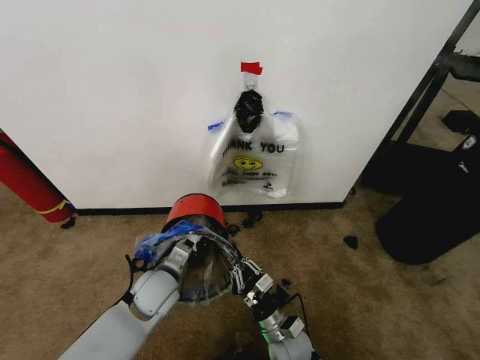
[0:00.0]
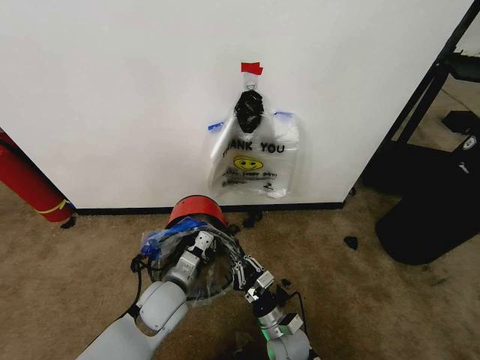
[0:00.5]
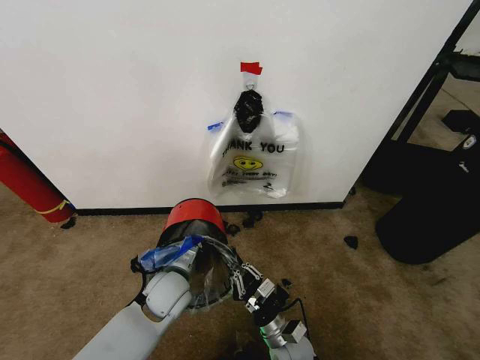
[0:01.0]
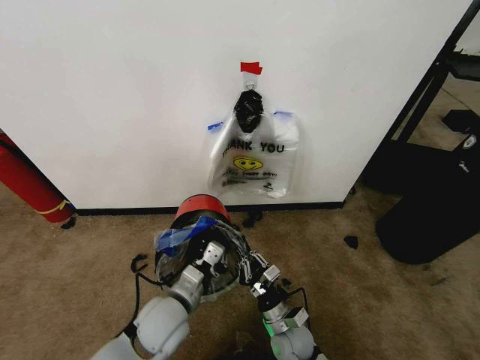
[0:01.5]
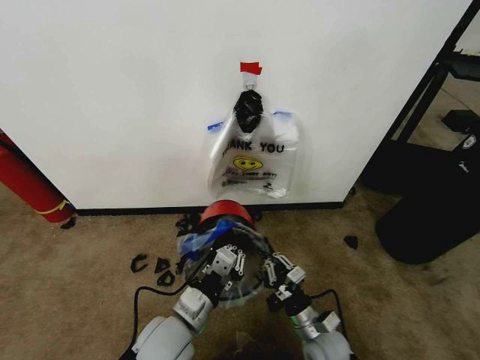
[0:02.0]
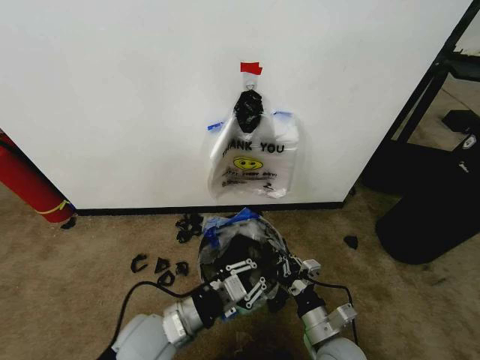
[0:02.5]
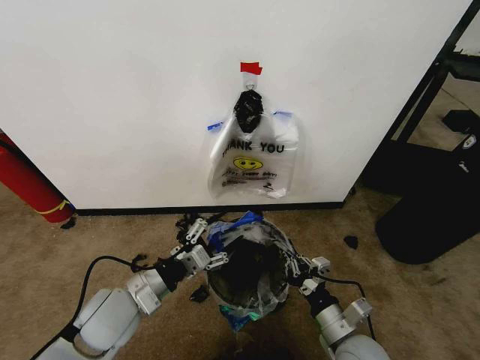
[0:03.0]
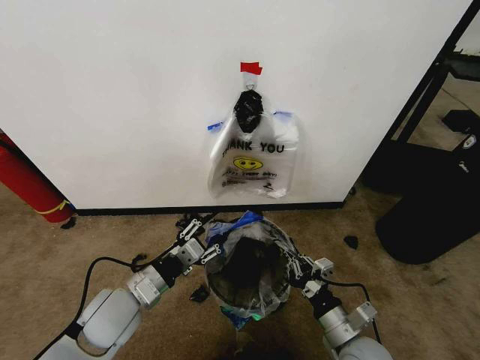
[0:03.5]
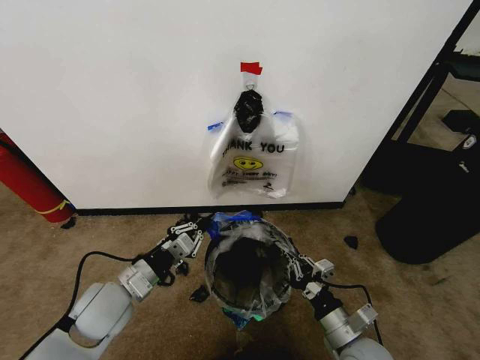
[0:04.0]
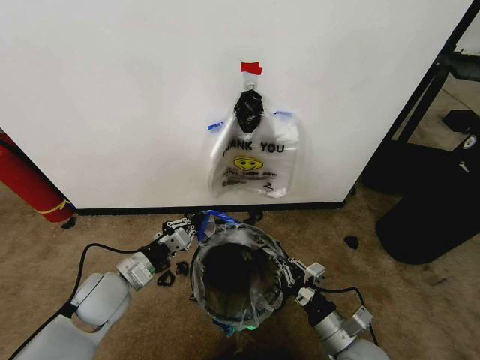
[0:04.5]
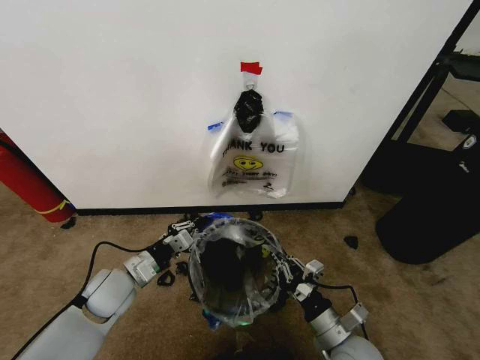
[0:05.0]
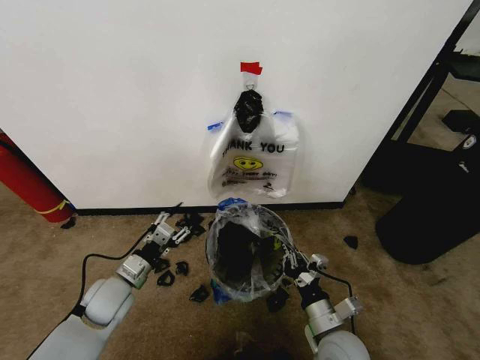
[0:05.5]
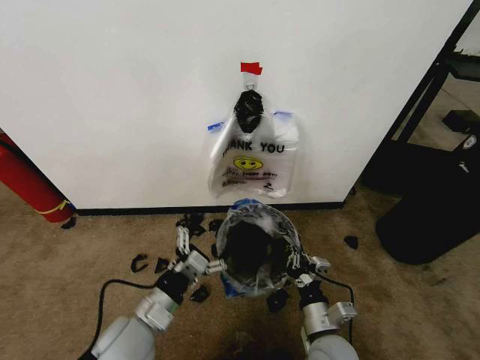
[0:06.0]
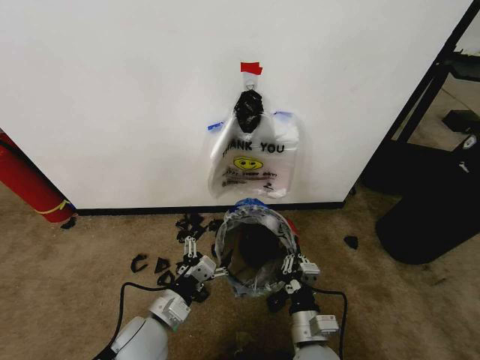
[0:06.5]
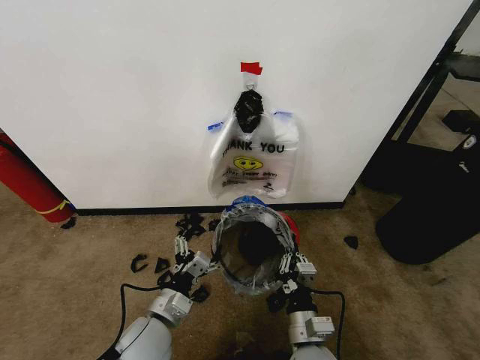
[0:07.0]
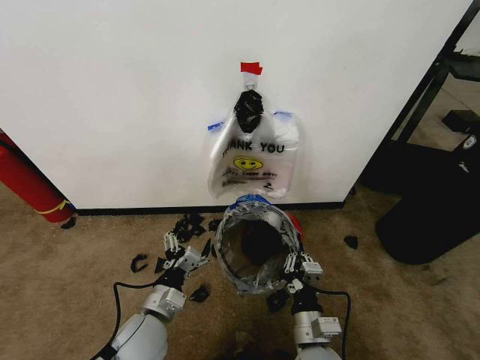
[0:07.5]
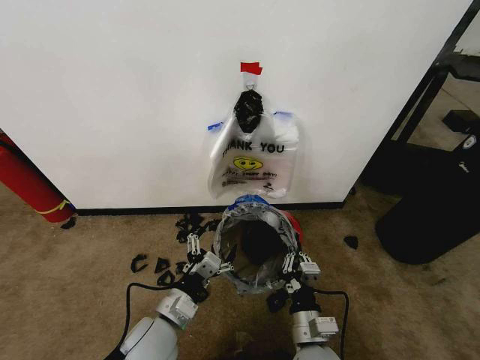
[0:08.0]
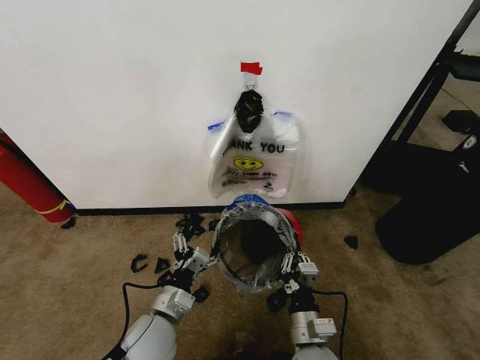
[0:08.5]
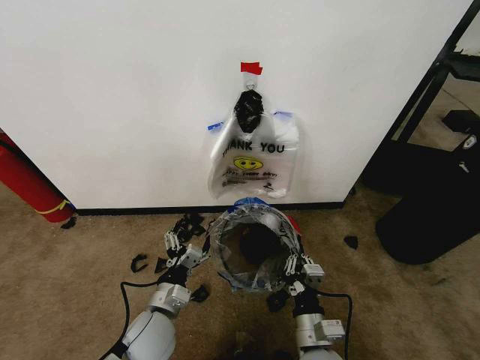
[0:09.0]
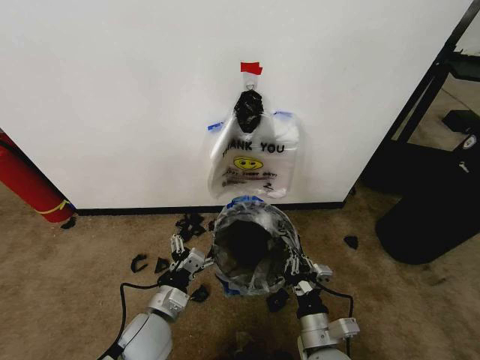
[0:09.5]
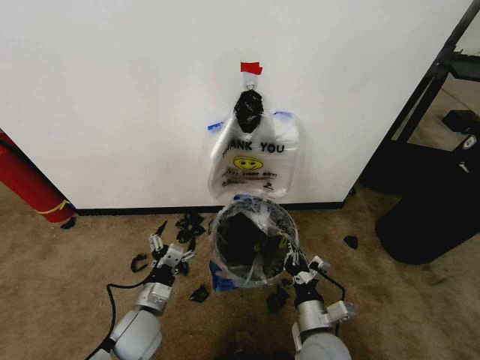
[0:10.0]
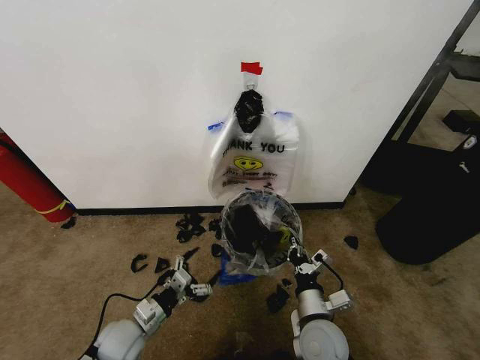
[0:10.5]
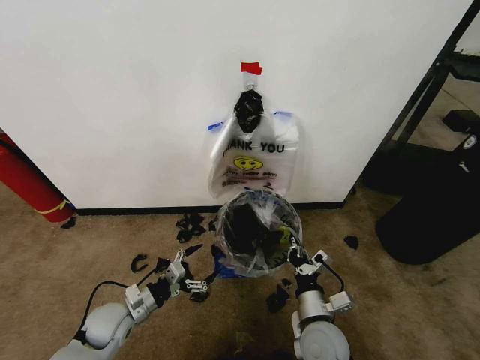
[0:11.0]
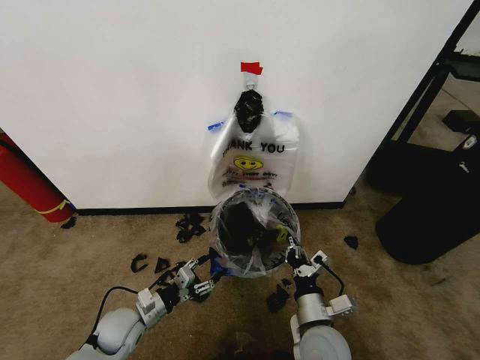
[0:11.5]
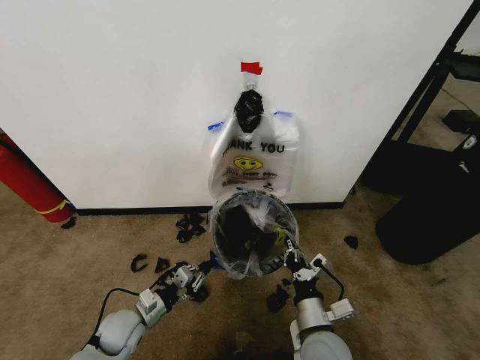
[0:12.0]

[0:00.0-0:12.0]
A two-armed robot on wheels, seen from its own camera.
Task of the whole recording: Pick up the garbage bag from the wall and place it over the trash bin.
0:00.0 to 0:02.0: The right gripper shifts some 5 cm to the right. The left gripper moves backward and to the right, approximately 10 cm.
0:02.0 to 0:04.0: The right gripper heads upward, covering some 10 cm. The left gripper heads to the left and forward, covering approximately 15 cm, and opens, then closes again.
0:04.0 to 0:06.0: The right gripper shifts approximately 5 cm to the left, while the left gripper heads backward and to the right, covering approximately 10 cm, and opens its fingers.
0:08.0 to 0:10.0: The left gripper moves downward, roughly 5 cm.
0:10.0 to 0:12.0: The left gripper shifts some 10 cm to the left and downward, and closes its fingers.

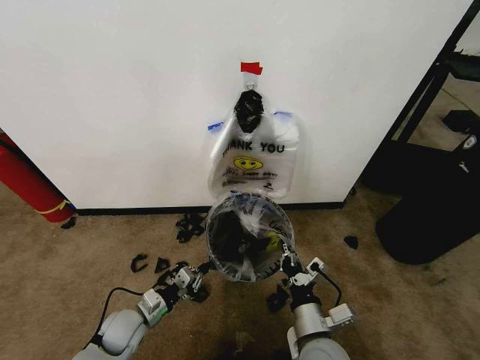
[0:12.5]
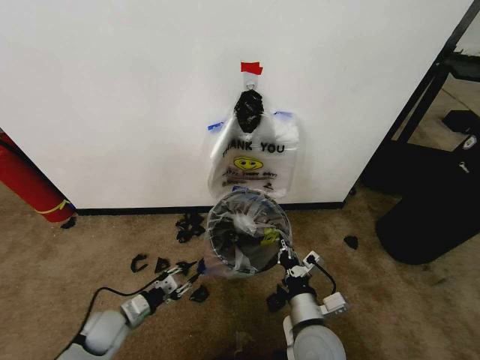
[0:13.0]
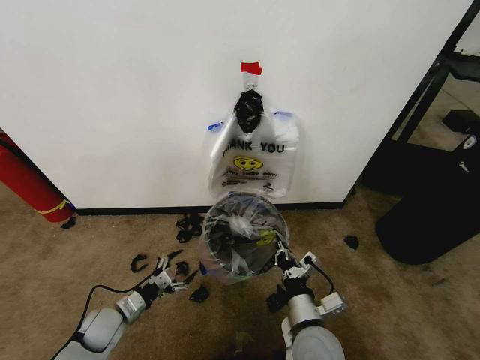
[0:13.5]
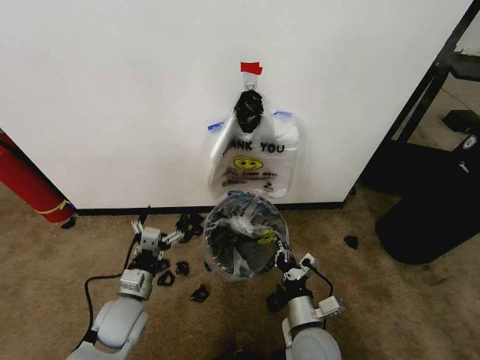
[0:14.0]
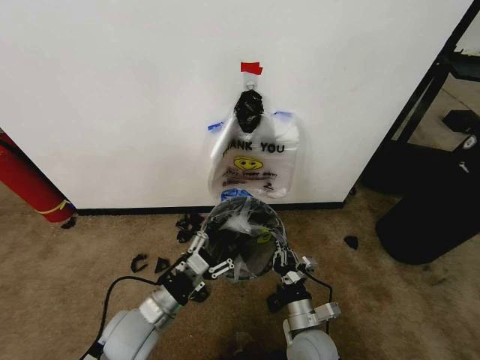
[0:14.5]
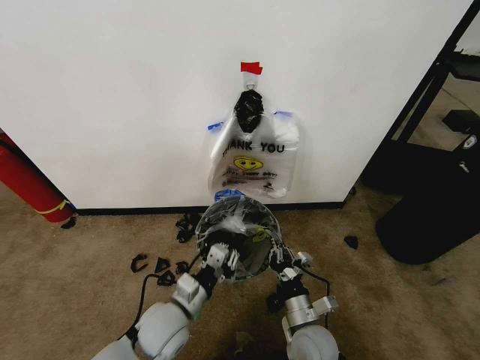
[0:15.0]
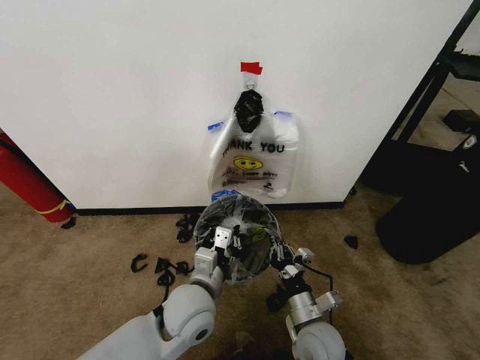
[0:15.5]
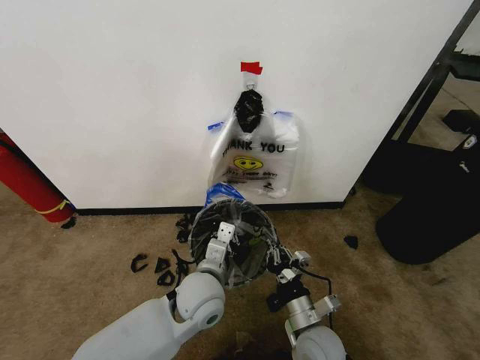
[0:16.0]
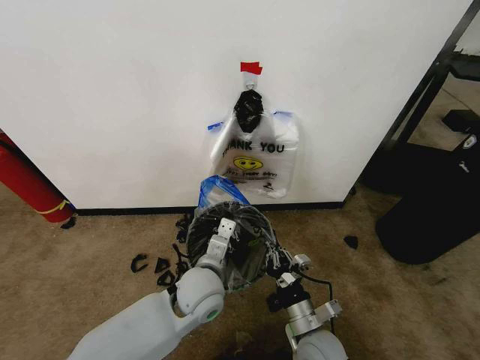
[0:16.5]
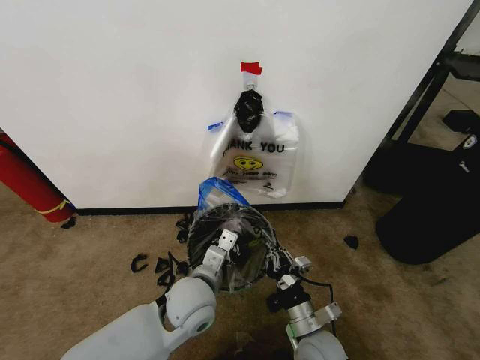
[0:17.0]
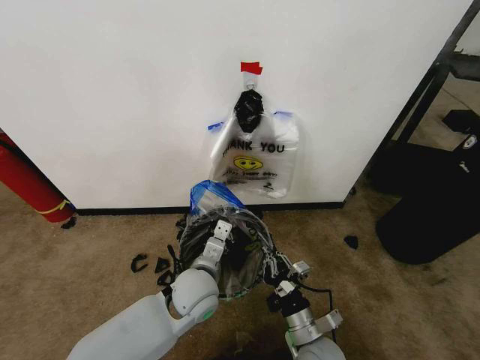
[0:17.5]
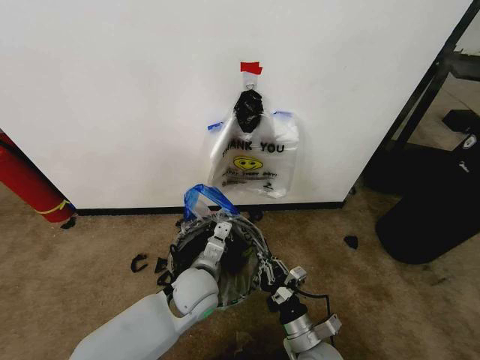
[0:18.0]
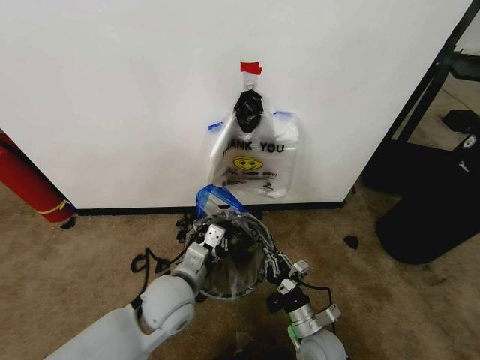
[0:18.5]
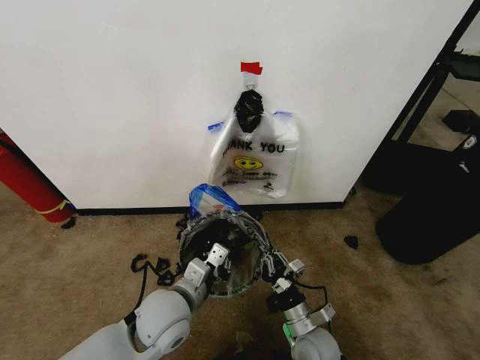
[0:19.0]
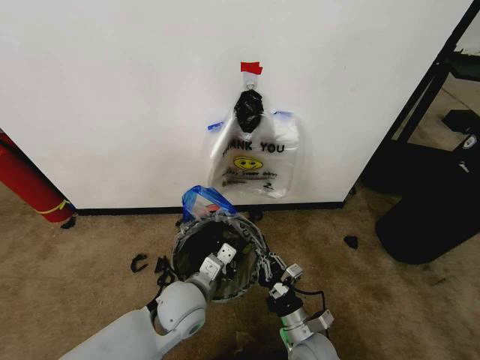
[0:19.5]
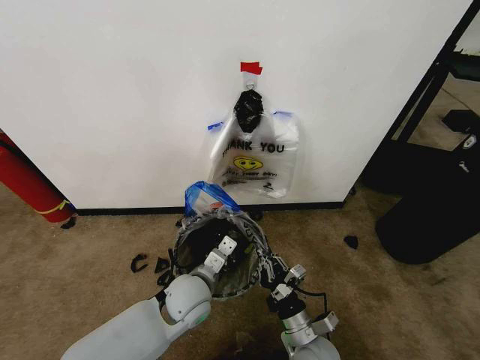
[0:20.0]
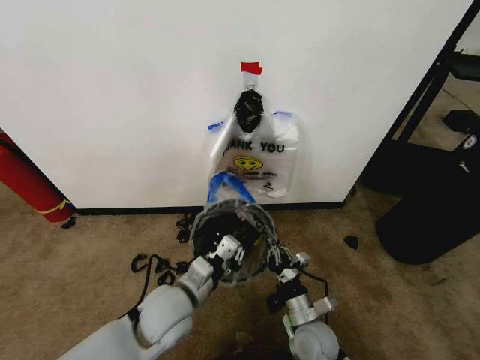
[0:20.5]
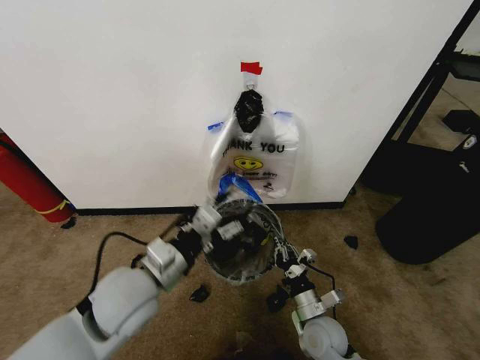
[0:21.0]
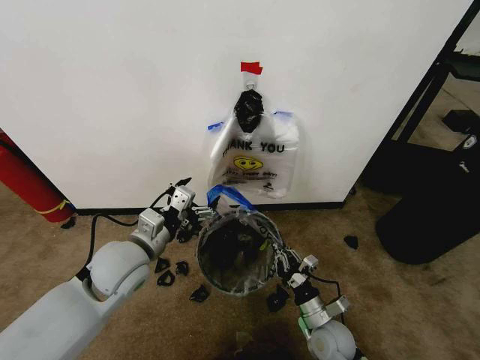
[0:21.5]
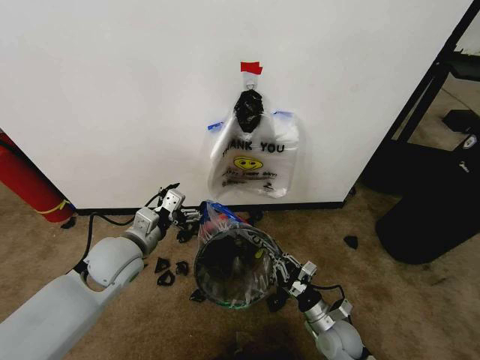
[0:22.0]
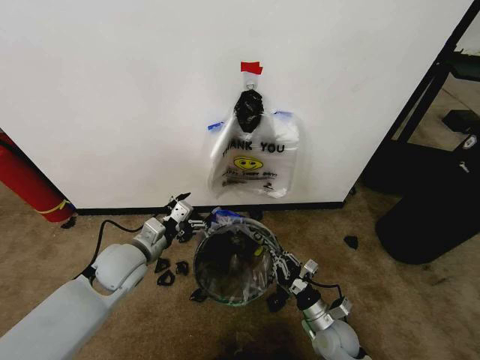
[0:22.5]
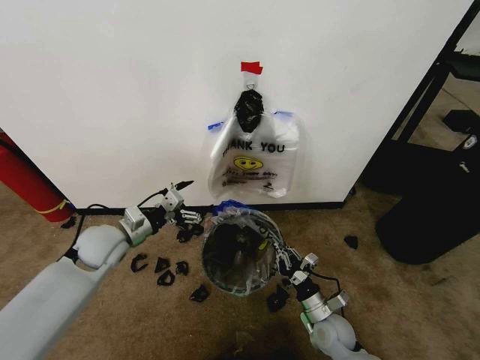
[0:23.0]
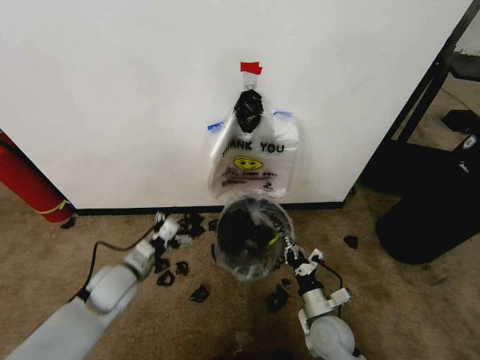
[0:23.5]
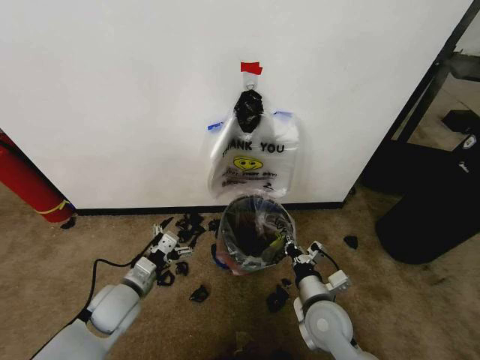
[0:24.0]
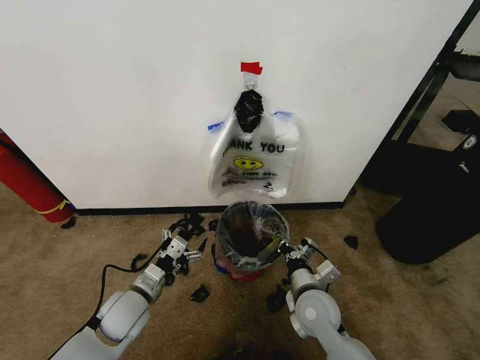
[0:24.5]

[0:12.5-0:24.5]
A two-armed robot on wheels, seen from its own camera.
Task of the whole recording: Pick up the garbage bag from the wall and place it over the trash bin.
0:12.5 to 0:14.5: The right gripper is displaced downward by roughly 5 cm. Meanwhile the left gripper goes approximately 15 cm upward and to the right, and opens up.
0:14.5 to 0:16.5: The left gripper moves to the right and forward, approximately 15 cm, and closes up.
0:16.5 to 0:18.5: The left gripper shifts some 5 cm to the left.
0:18.5 to 0:20.5: The grippers make only small movements.
0:20.5 to 0:22.5: The left gripper moves to the left and forward, some 15 cm, and opens. Meanwhile the right gripper goes about 5 cm to the right.
0:22.5 to 0:24.5: The right gripper shifts about 15 cm upward and to the left. Meanwhile the left gripper is displaced downward and backward by some 10 cm.

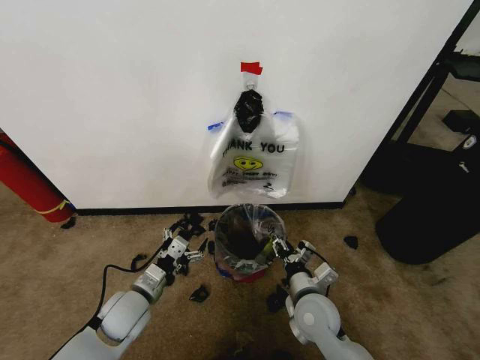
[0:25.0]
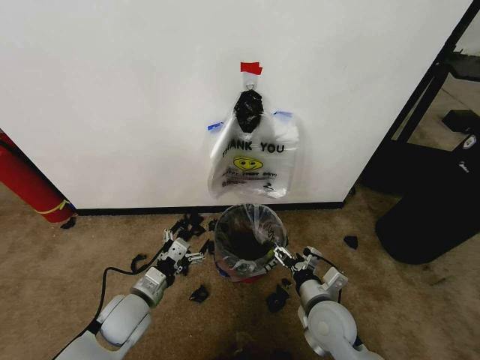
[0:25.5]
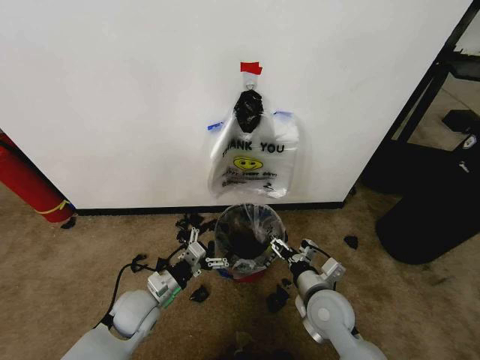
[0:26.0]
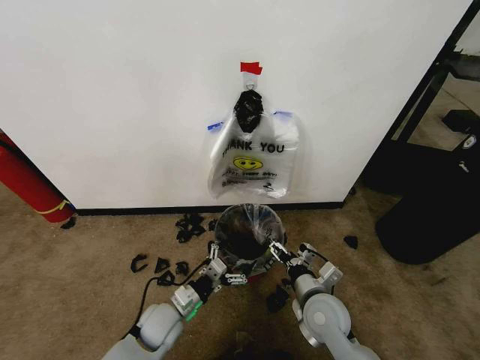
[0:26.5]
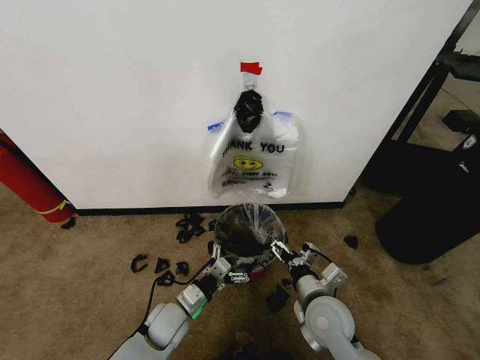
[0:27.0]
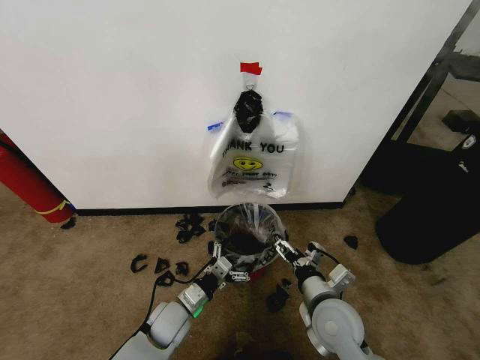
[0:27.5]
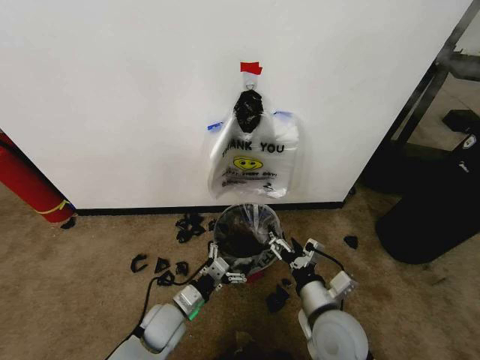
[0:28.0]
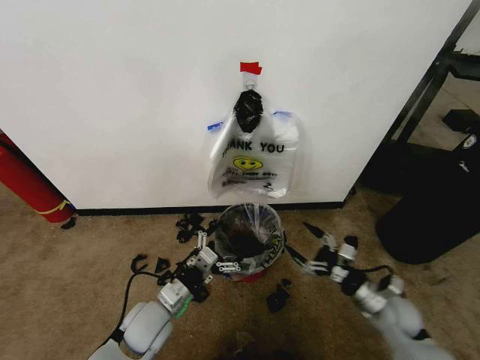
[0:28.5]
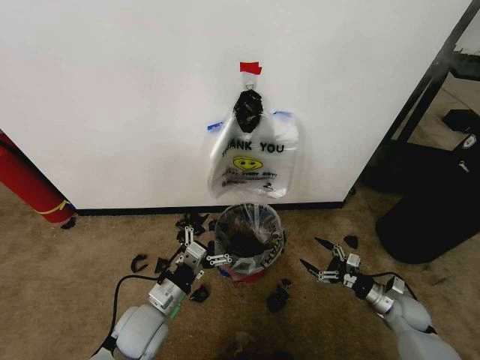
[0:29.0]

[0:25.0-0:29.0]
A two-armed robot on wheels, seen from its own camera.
Task of the whole recording: Pick up the garbage bag from the wall and place it over the trash bin.
0:25.0 to 0:27.0: The left gripper is displaced downward and to the right by some 10 cm, while the right gripper opens up.
0:27.0 to 0:29.0: The left gripper is displaced upward by about 10 cm. The right gripper shifts about 30 cm to the right and downward.
